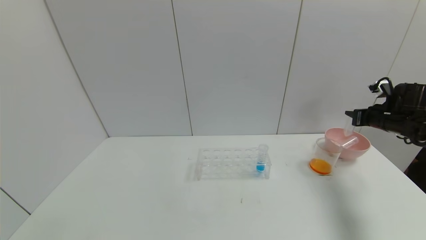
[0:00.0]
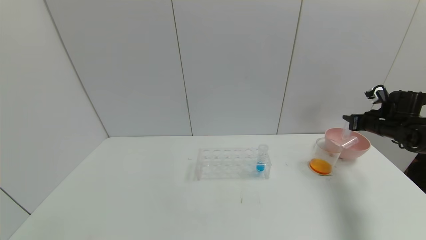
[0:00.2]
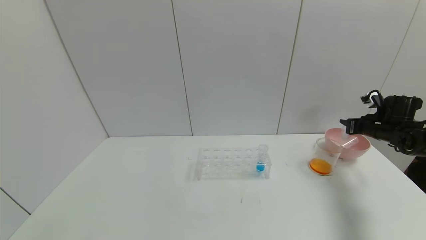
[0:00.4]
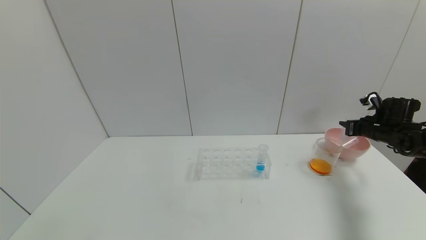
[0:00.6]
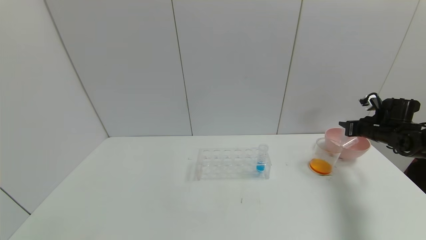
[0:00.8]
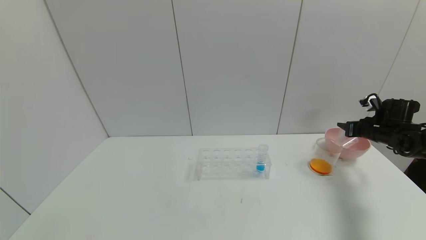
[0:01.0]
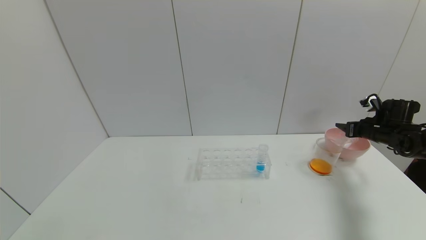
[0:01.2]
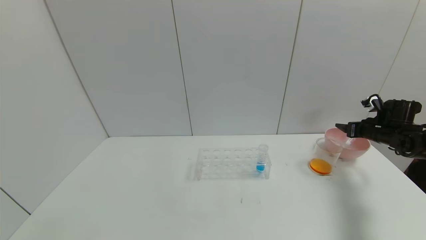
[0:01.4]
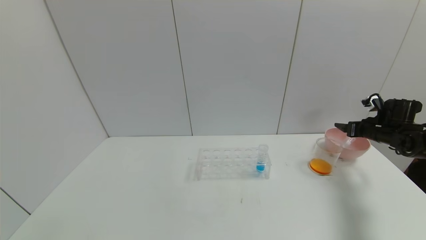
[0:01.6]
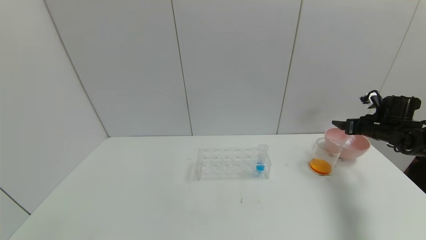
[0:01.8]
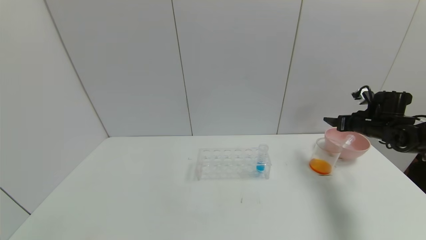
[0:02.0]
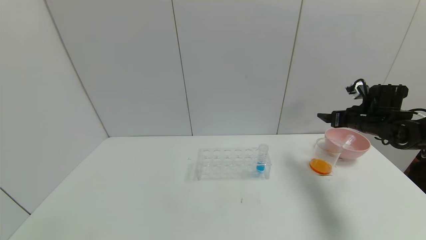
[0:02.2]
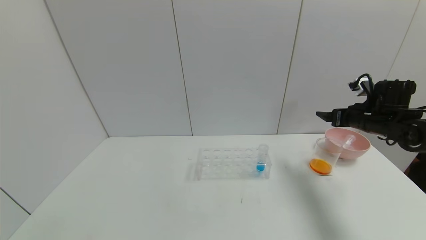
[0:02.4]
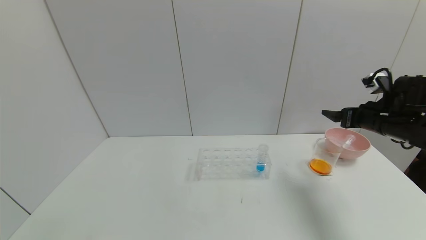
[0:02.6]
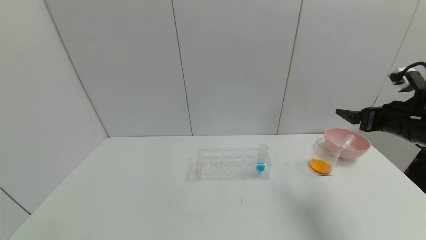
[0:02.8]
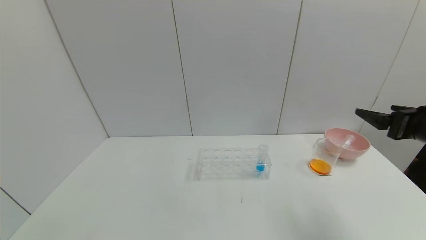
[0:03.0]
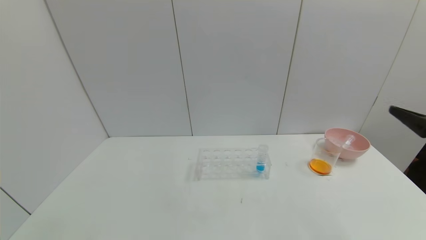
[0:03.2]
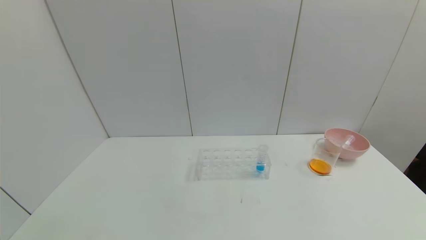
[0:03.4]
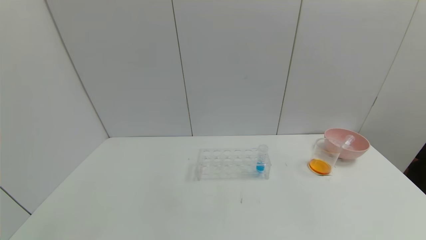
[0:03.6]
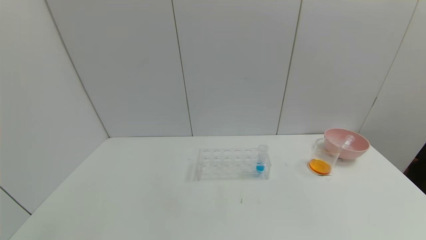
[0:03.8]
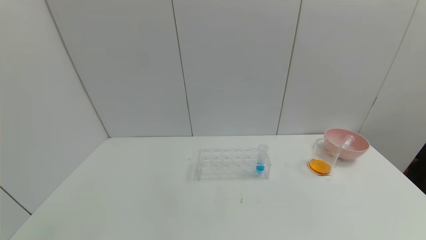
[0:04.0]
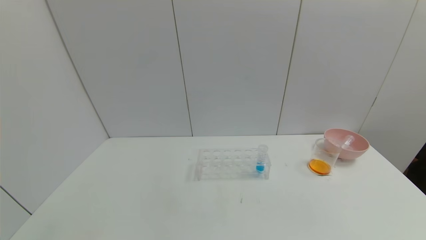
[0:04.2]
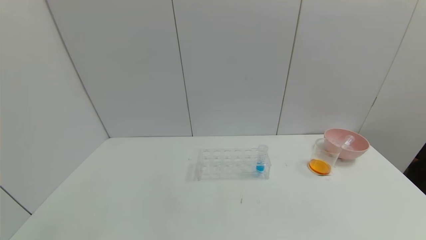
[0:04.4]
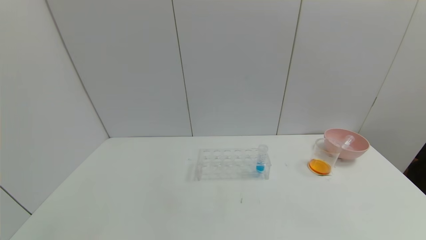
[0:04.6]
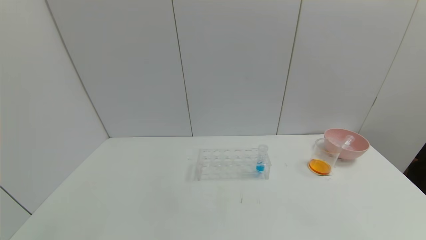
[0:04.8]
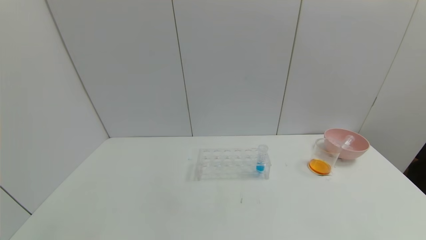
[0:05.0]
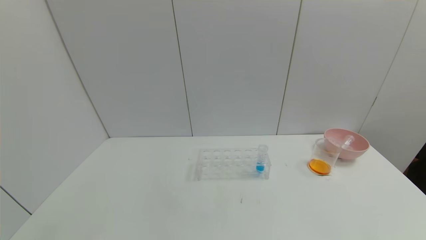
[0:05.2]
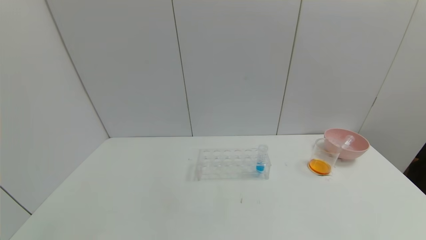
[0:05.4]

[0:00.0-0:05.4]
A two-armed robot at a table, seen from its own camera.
Task of the whole recording: pick up the test tube with yellow pigment and the test tube with red pigment by grippers and pour them into the beaker.
0:00.0 to 0:01.4: The right gripper shifts by some 5 cm, and opens its fingers.
0:01.4 to 0:02.8: The right gripper is displaced backward, upward and to the left by approximately 20 cm.
0:02.8 to 0:04.0: The right gripper heads backward, covering about 35 cm.

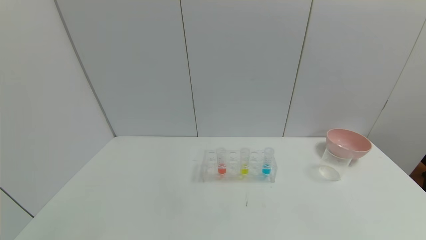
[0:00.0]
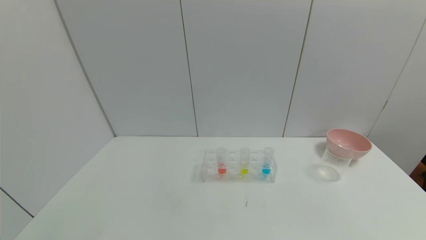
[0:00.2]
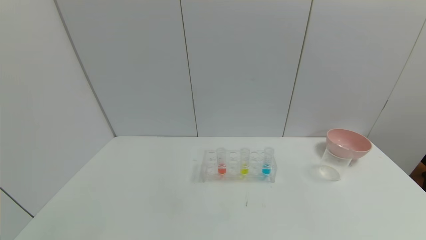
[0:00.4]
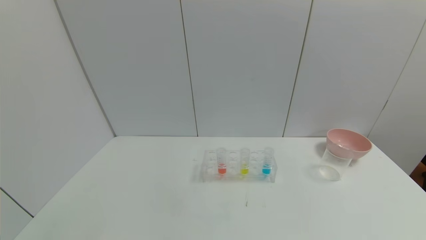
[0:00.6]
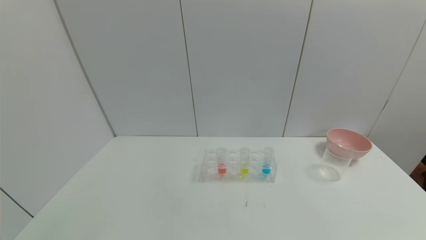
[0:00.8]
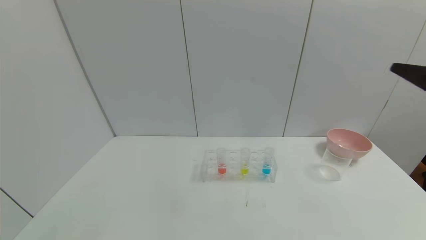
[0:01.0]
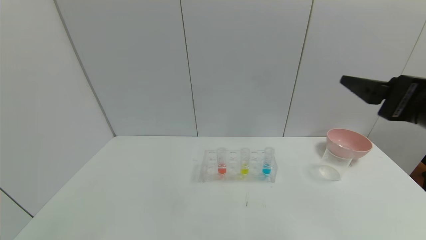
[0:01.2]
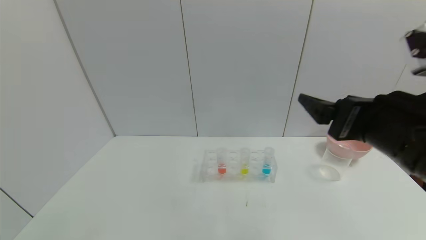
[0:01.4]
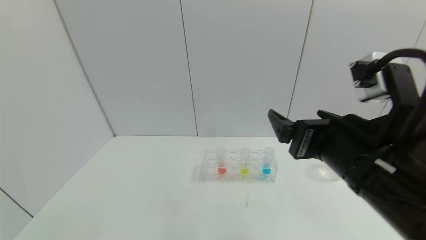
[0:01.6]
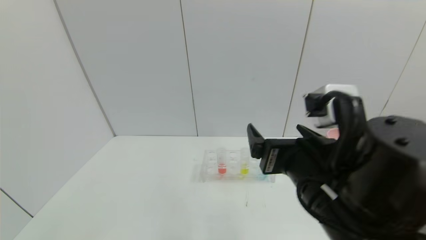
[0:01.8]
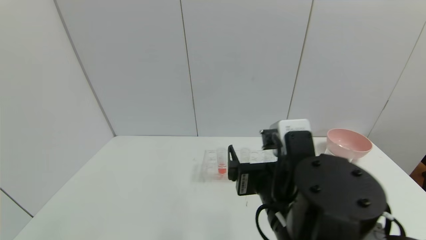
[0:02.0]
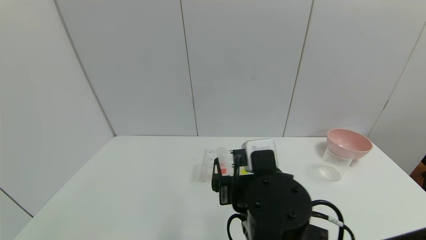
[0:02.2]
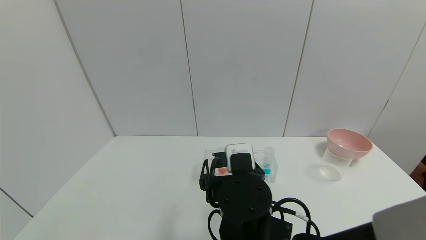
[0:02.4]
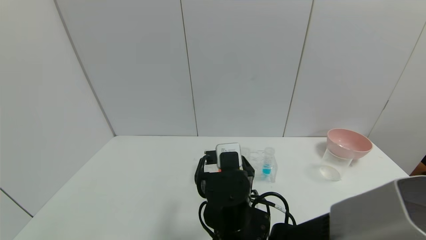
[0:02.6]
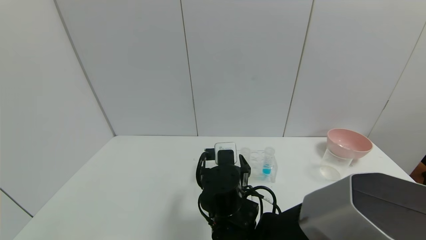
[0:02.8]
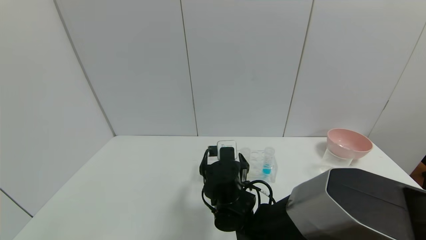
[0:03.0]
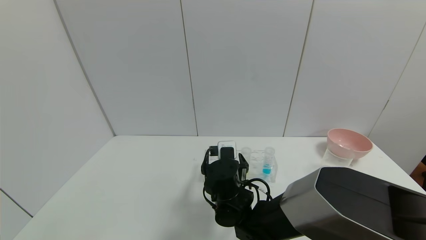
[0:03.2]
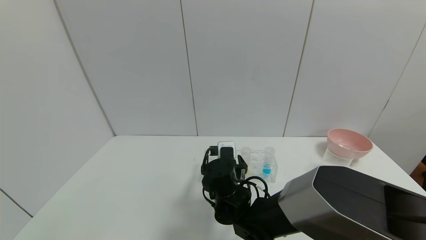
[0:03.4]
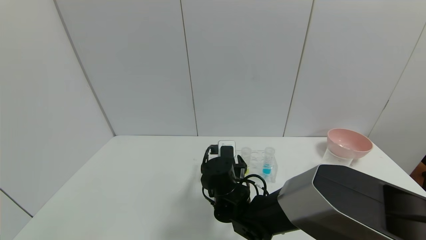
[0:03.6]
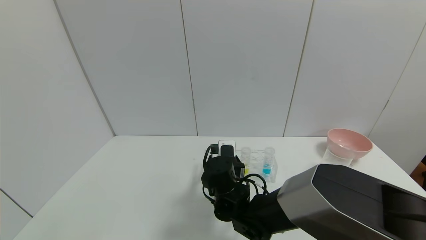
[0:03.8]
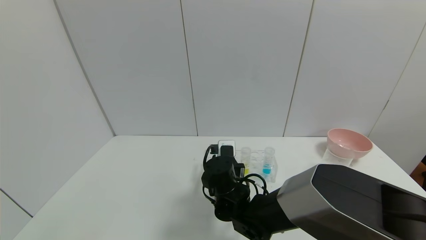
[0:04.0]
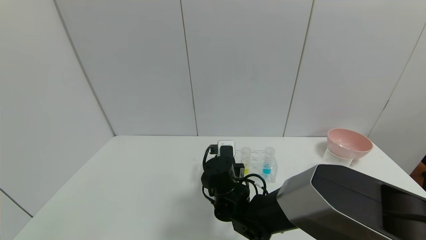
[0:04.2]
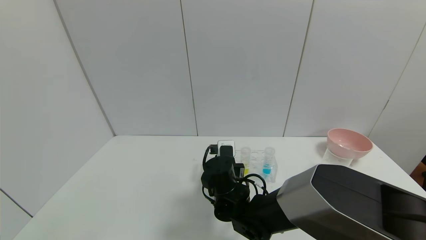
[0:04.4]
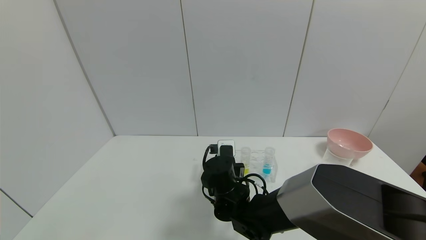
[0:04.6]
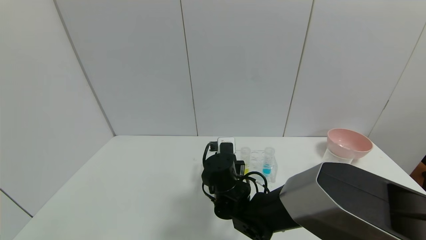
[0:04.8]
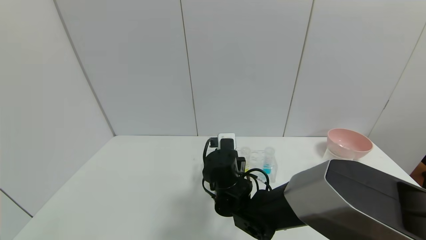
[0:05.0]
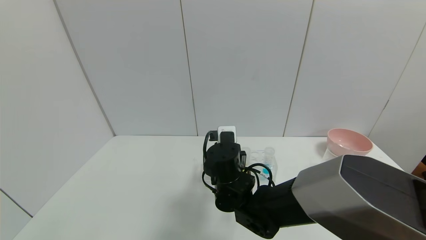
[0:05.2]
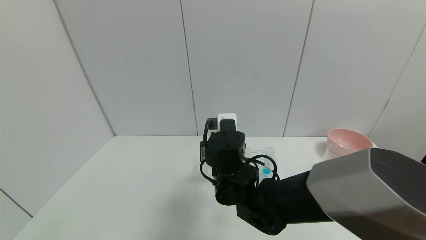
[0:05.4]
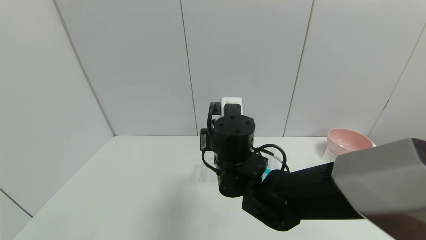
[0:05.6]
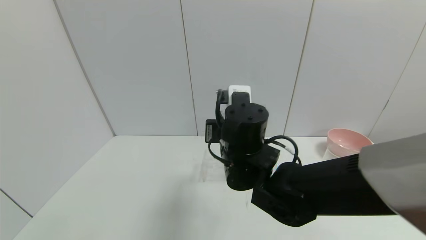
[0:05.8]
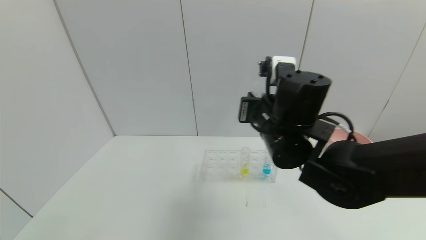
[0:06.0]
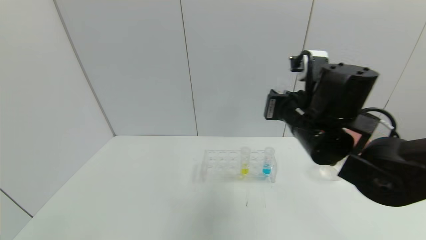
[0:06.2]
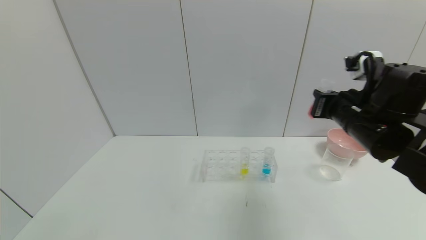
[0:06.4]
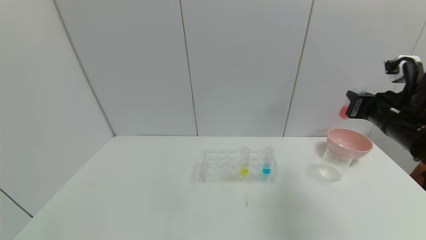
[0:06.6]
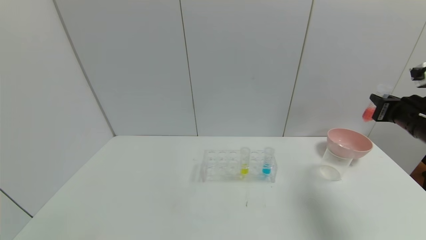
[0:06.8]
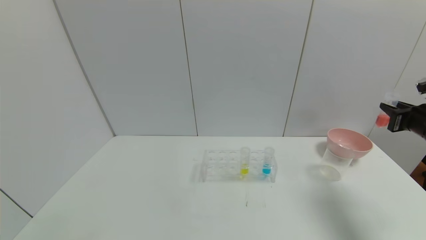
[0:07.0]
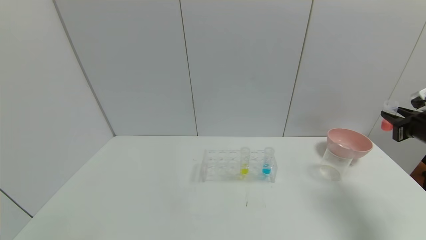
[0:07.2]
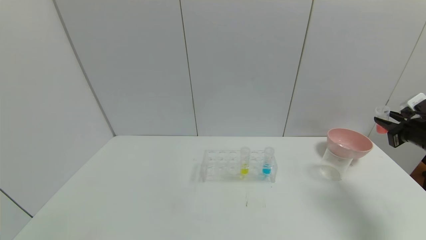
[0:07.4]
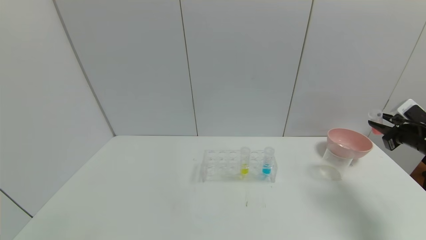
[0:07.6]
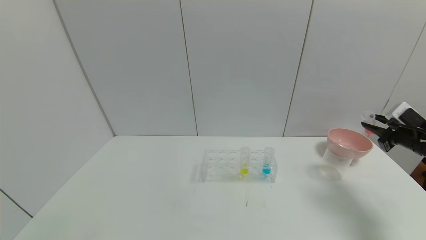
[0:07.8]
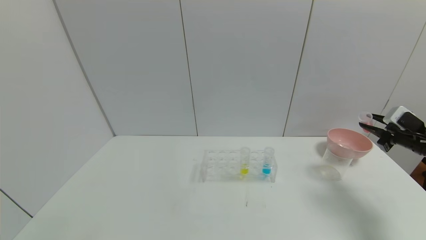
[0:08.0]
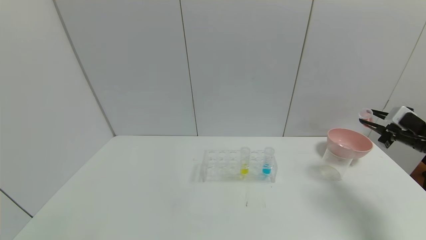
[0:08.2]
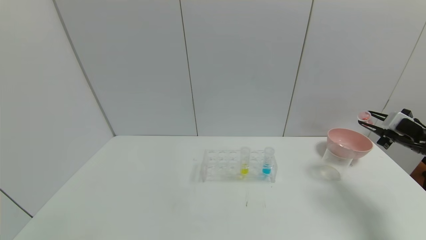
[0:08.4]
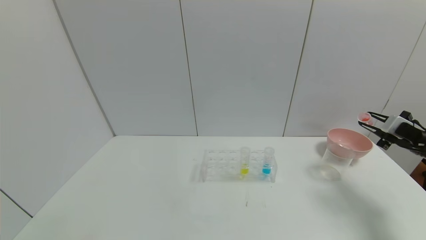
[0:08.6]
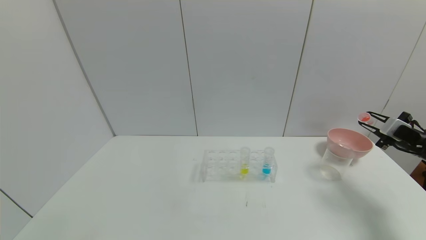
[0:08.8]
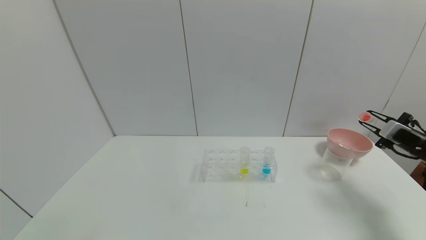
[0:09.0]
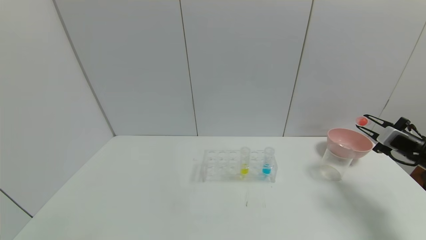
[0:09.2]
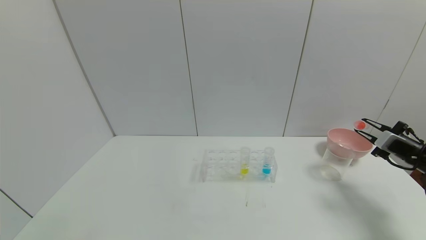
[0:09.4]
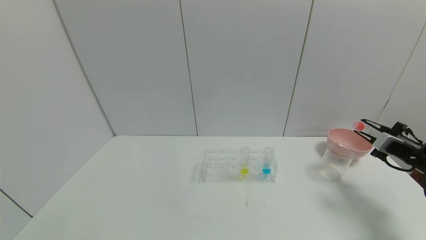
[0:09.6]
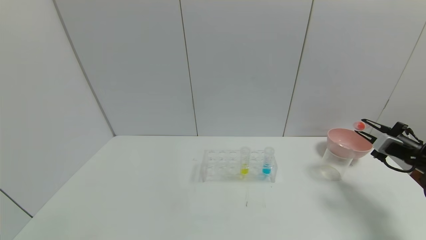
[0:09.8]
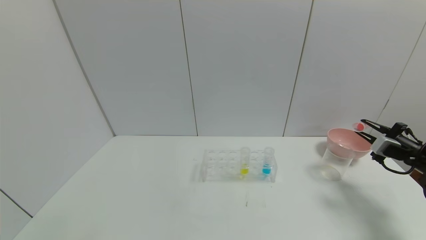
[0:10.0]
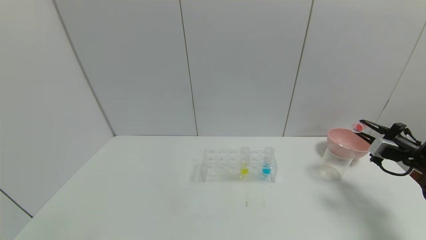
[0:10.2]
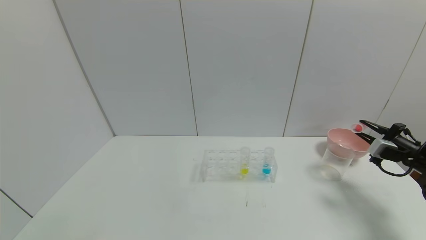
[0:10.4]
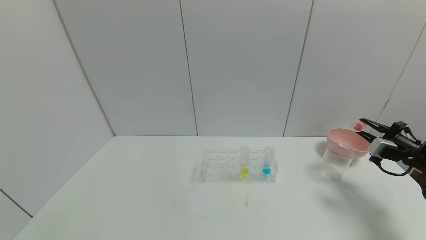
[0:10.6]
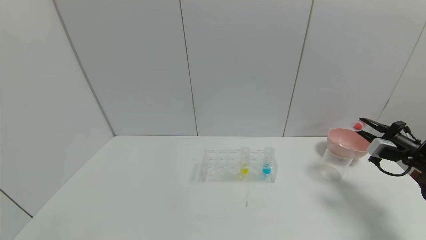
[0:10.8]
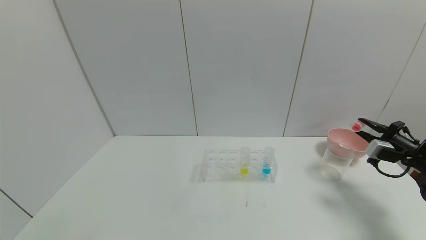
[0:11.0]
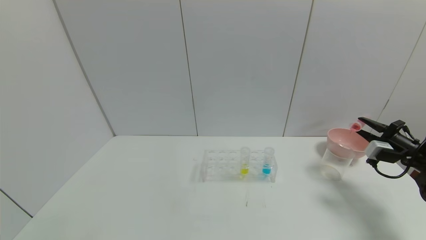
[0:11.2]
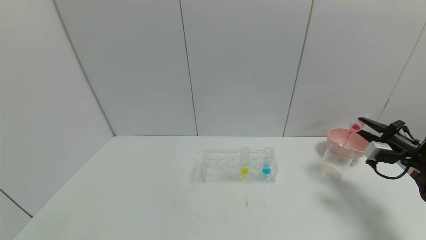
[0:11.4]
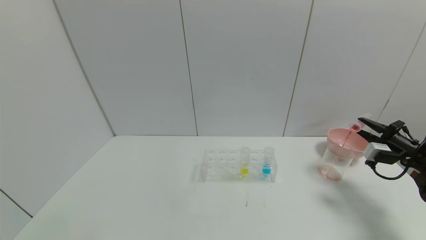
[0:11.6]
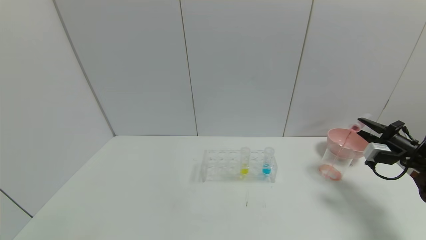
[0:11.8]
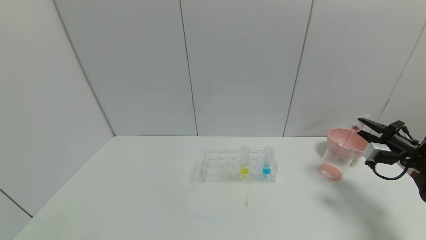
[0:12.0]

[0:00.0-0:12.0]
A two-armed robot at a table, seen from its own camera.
Task of the whole recording: pick up the test tube with yellow pigment and the test tube with red pigment by grippers and pour them into the beaker.
Step, 0:00.0 to 0:07.0: Pick up the test tube containing the red reagent with right gripper.
0:00.0 to 0:01.6: The right gripper heads forward, to the left and upward, covering about 30 cm.
0:01.6 to 0:03.0: The right gripper travels downward, to the left and forward by approximately 25 cm.
0:03.0 to 0:04.4: The right gripper closes.
0:04.4 to 0:06.0: The right gripper shifts roughly 20 cm upward and to the right.
0:06.0 to 0:07.6: The right gripper is displaced to the right by some 40 cm.
0:09.0 to 0:10.4: The grippers stay close to where they were, moving slightly.
0:10.4 to 0:12.0: The grippers make only small movements.
